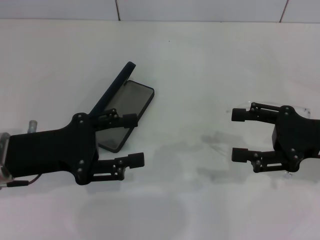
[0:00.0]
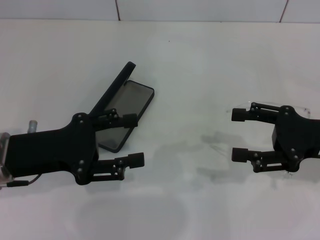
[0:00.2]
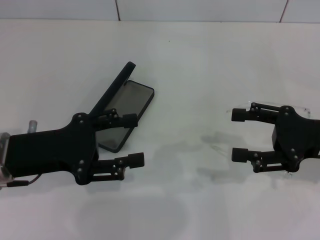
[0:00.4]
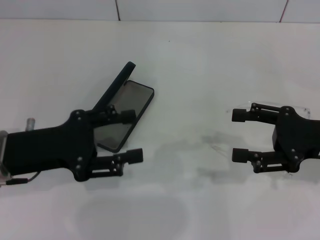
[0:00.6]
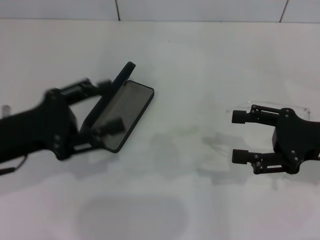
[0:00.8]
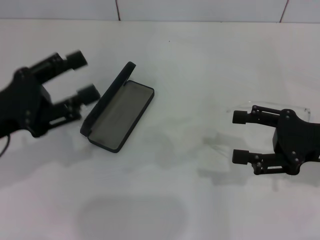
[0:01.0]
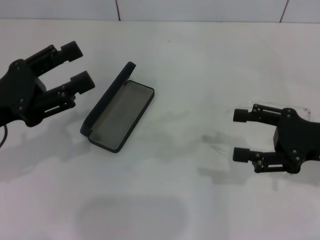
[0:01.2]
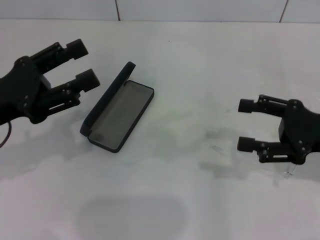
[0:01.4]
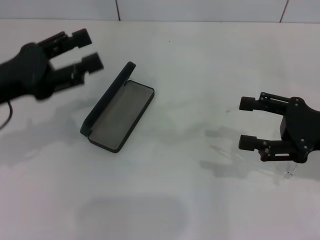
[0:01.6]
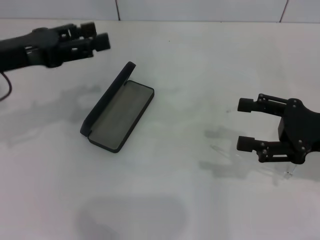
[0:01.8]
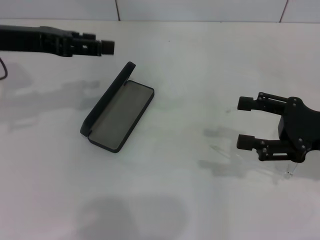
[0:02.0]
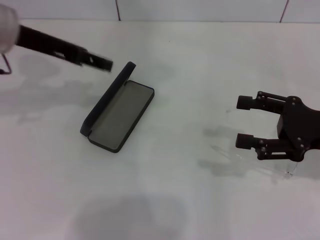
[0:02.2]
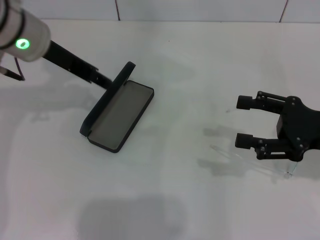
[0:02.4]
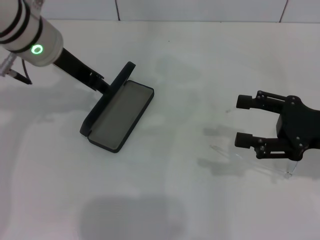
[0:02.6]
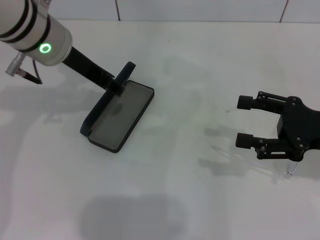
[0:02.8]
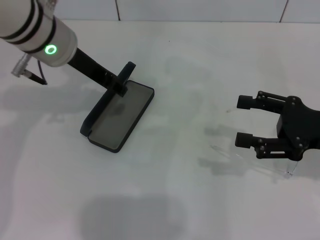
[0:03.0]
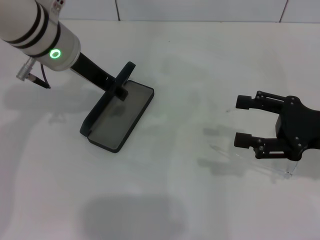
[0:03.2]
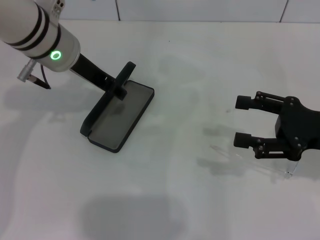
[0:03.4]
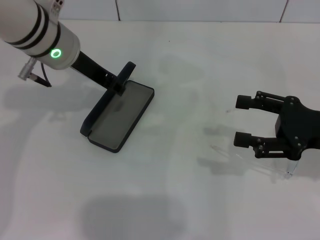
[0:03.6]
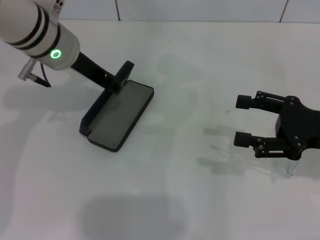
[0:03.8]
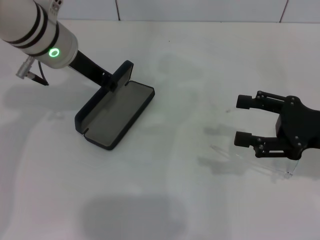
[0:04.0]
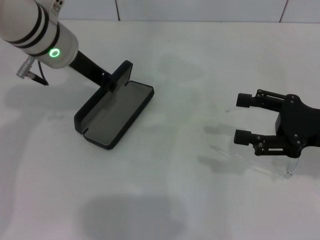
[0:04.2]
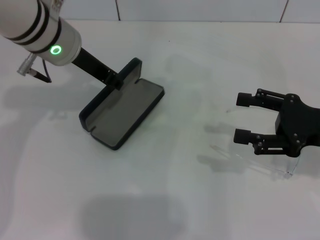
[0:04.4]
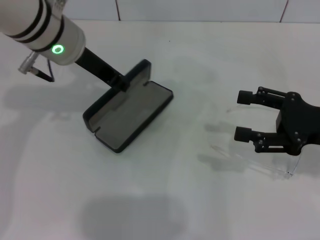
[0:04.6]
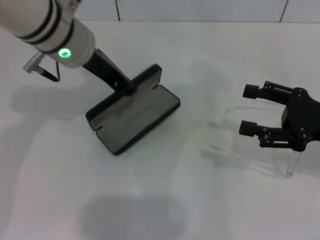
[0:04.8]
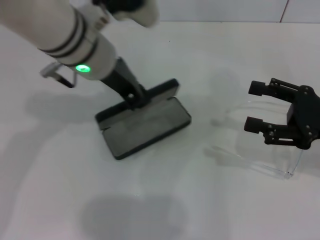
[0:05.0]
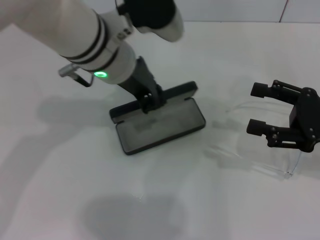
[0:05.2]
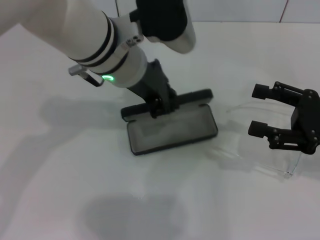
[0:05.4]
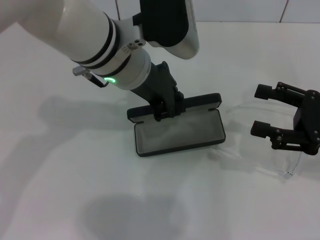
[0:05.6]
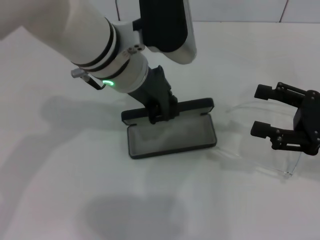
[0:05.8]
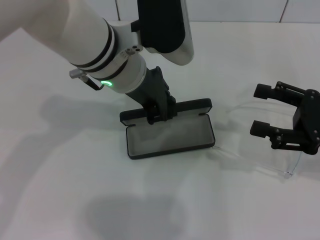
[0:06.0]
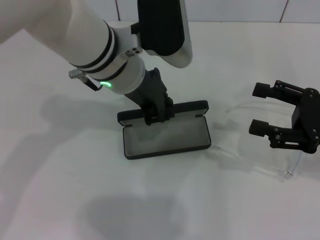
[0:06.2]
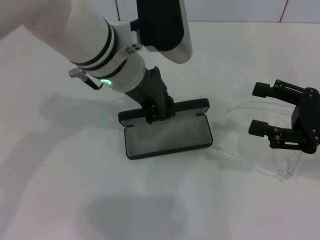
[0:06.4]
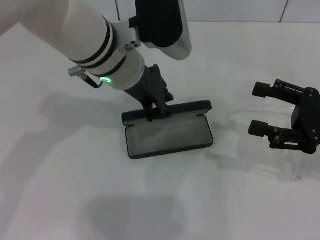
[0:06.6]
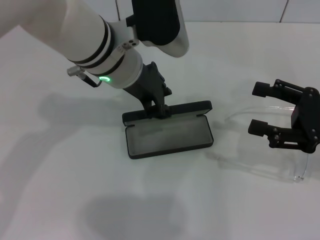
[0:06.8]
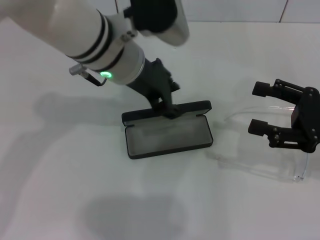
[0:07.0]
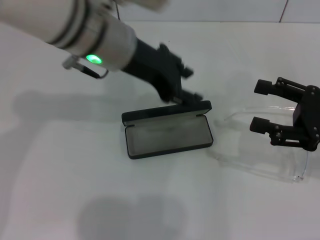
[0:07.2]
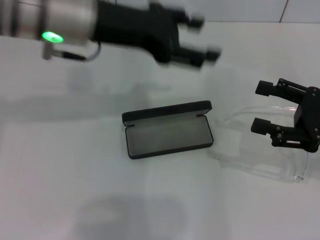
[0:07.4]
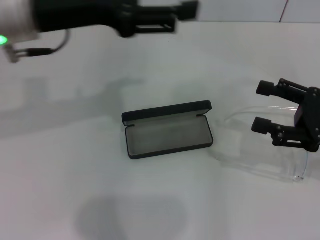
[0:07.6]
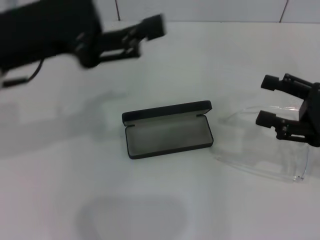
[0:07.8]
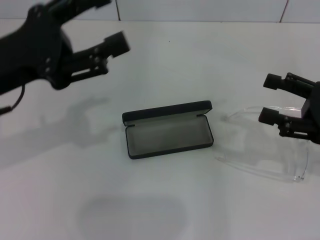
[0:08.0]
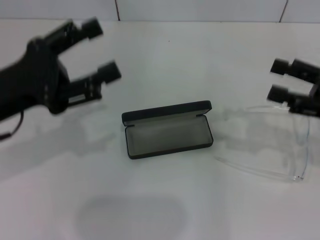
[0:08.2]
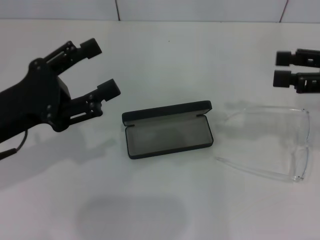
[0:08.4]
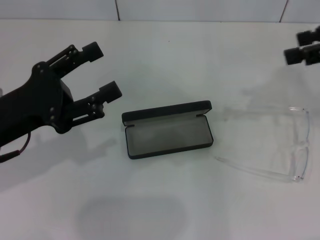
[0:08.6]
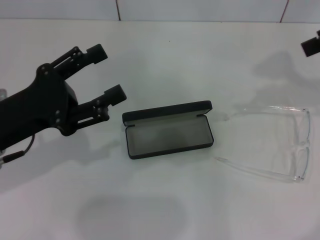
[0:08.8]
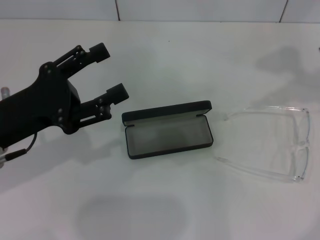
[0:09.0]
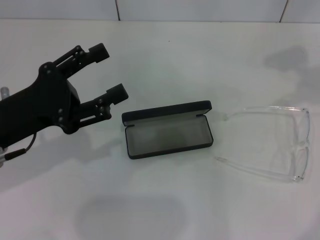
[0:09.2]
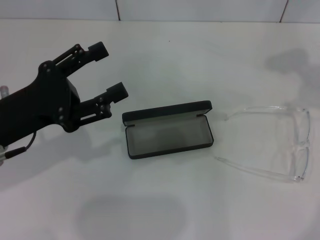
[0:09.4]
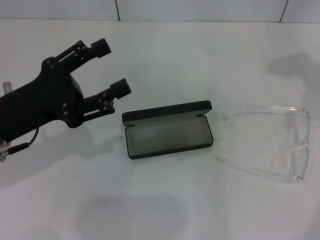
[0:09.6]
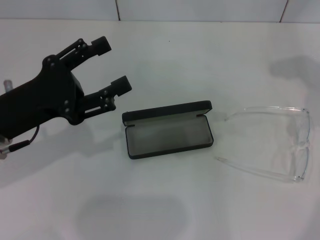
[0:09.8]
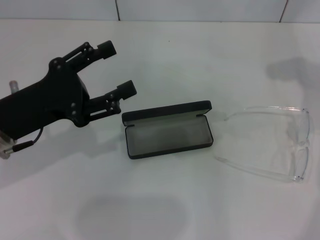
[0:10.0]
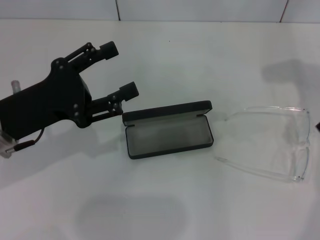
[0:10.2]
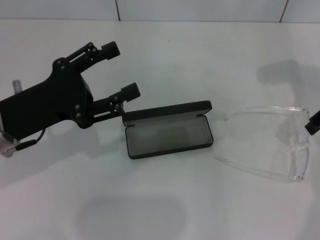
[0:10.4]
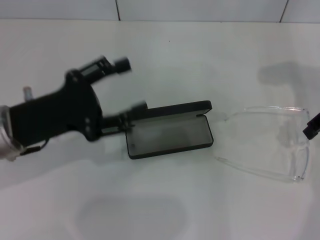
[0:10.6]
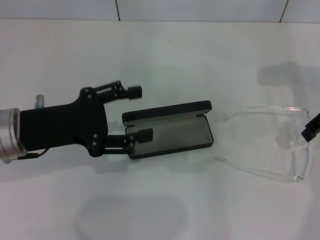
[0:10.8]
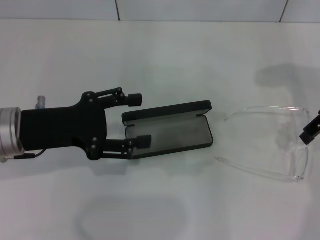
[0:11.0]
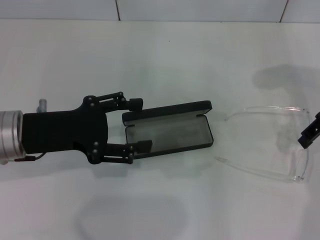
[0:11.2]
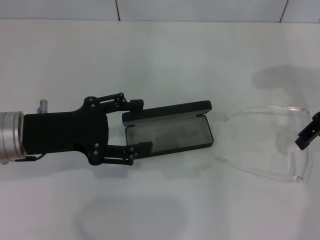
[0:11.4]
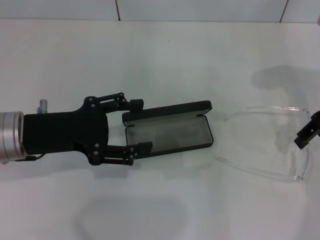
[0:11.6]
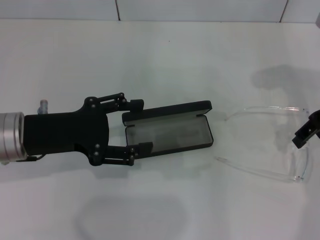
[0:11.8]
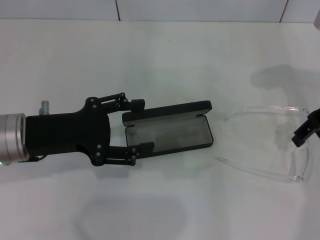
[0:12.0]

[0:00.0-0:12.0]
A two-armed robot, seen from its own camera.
Step, 0:00.0 to 0:04.0: Grab the glasses case with your left hand.
Step, 0:04.4 to 0:06.8: Place the glasses case in the center of the table with your left hand.
0:00.0 to 0:01.6: The left gripper shifts by some 5 cm.
0:01.6 to 0:03.0: The left gripper heads to the right and forward, covering approximately 15 cm.
0:03.0 to 0:04.4: The left gripper closes its fingers.
0:04.4 to 0:06.0: The left gripper is displaced to the right by about 10 cm.
0:06.0 to 0:07.6: The left gripper travels to the left and upward by about 15 cm, and opens.
0:07.6 to 0:09.0: The left gripper moves downward, backward and to the left, about 15 cm; the right gripper shifts approximately 25 cm upward and forward.
0:09.0 to 0:10.4: The right gripper travels downward by roughly 10 cm.

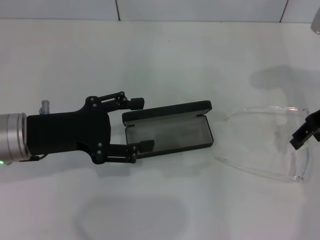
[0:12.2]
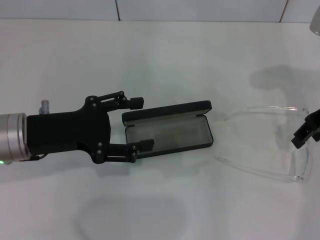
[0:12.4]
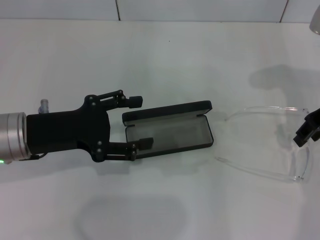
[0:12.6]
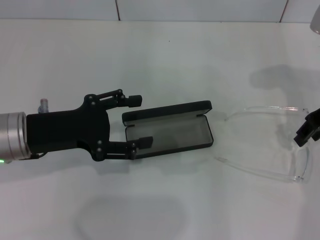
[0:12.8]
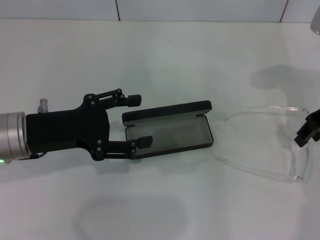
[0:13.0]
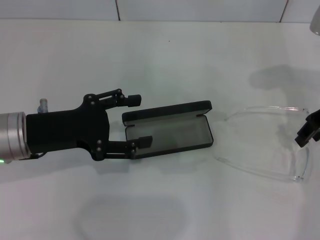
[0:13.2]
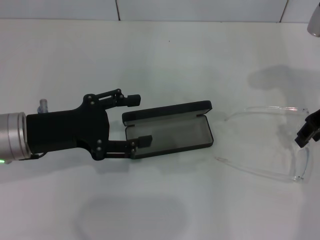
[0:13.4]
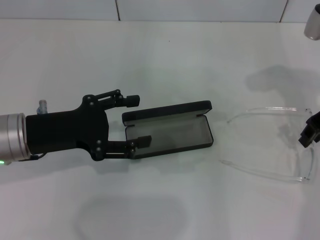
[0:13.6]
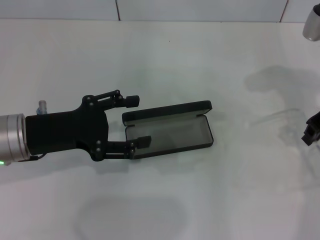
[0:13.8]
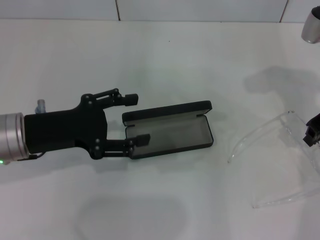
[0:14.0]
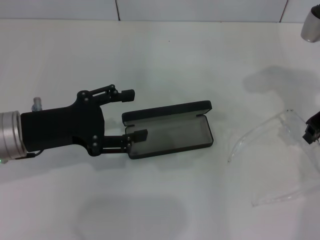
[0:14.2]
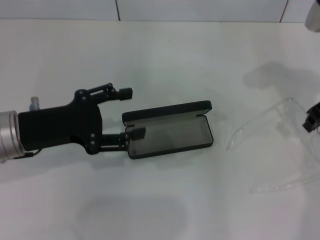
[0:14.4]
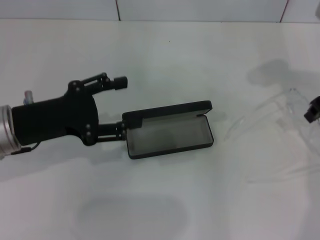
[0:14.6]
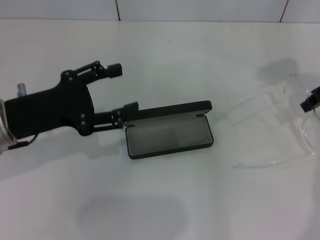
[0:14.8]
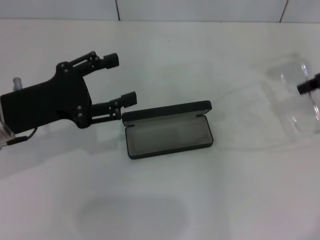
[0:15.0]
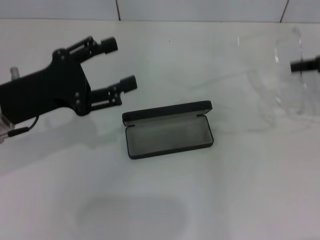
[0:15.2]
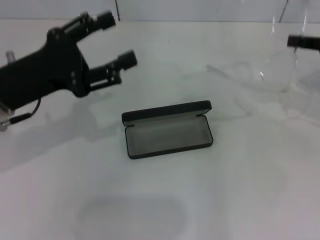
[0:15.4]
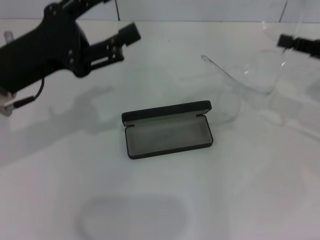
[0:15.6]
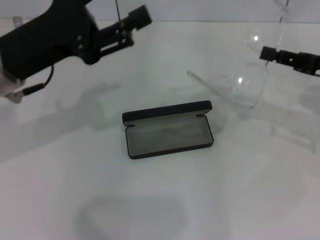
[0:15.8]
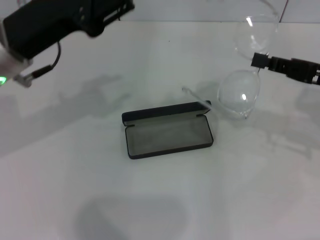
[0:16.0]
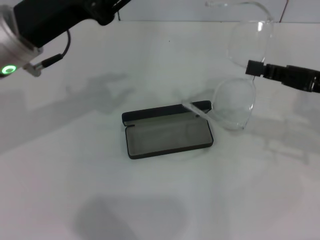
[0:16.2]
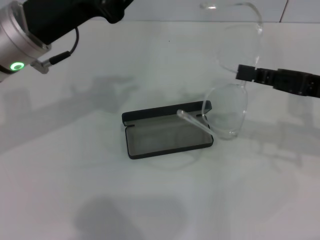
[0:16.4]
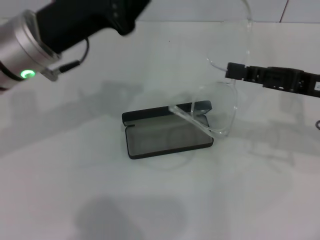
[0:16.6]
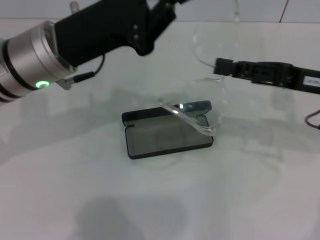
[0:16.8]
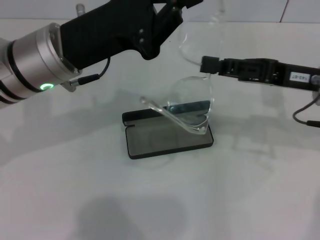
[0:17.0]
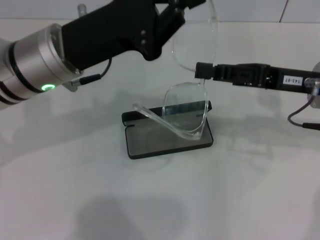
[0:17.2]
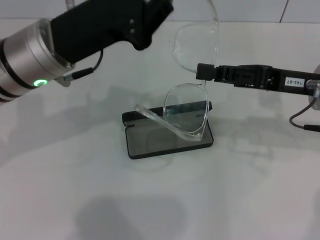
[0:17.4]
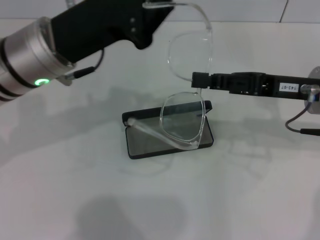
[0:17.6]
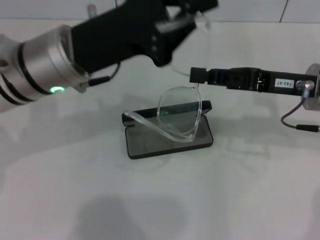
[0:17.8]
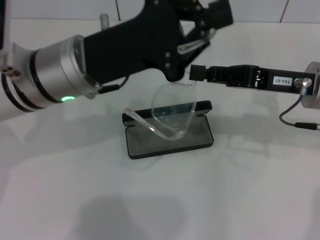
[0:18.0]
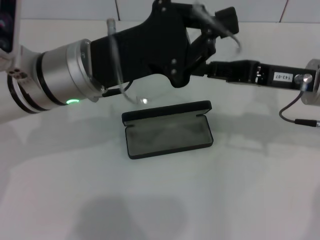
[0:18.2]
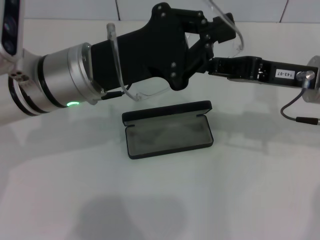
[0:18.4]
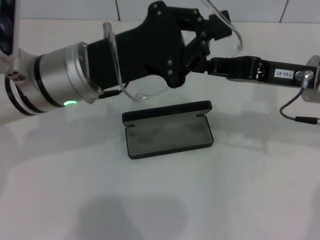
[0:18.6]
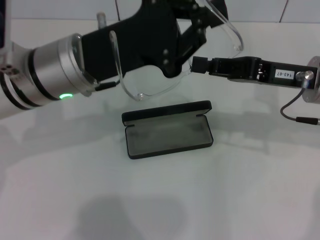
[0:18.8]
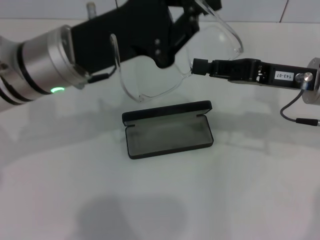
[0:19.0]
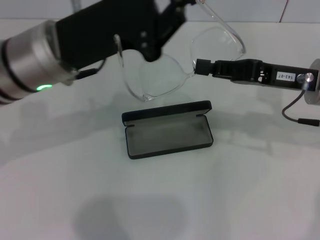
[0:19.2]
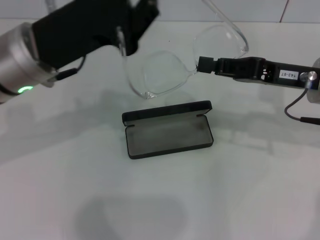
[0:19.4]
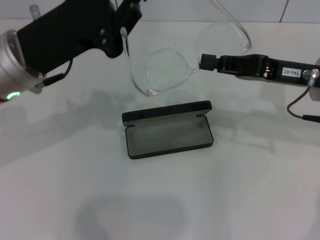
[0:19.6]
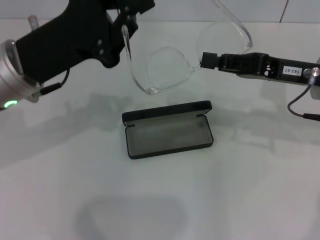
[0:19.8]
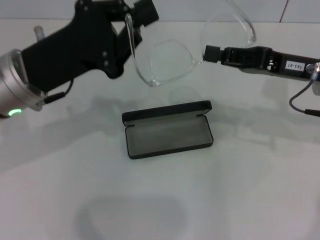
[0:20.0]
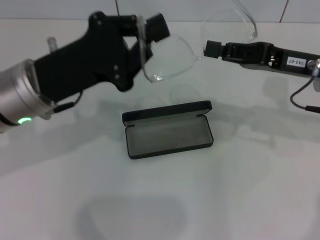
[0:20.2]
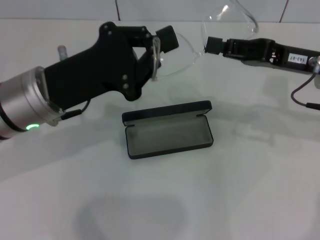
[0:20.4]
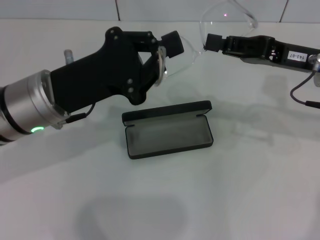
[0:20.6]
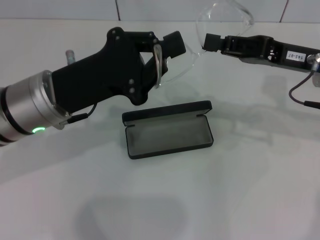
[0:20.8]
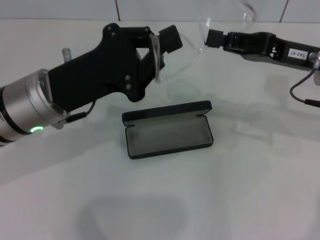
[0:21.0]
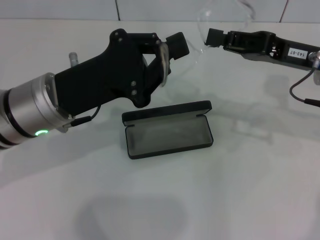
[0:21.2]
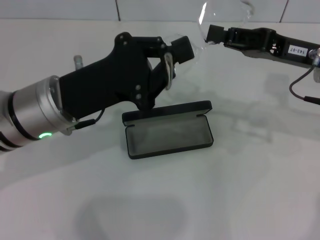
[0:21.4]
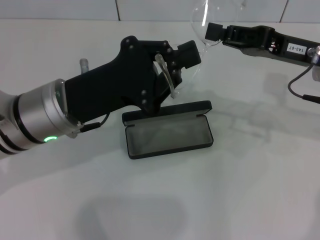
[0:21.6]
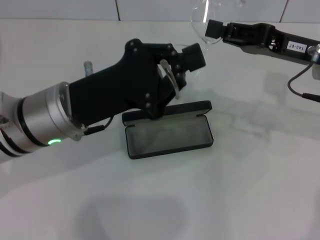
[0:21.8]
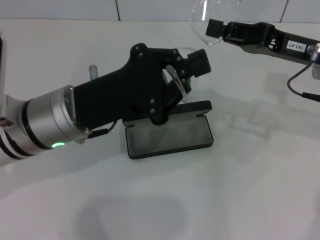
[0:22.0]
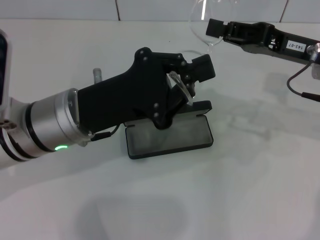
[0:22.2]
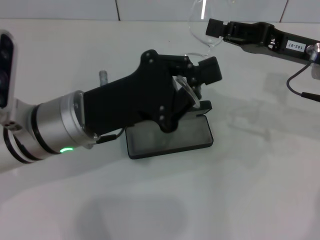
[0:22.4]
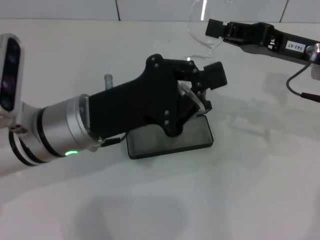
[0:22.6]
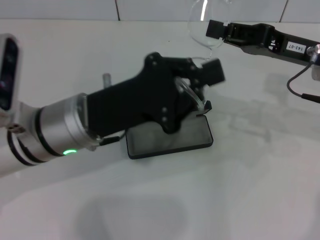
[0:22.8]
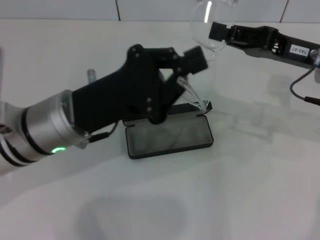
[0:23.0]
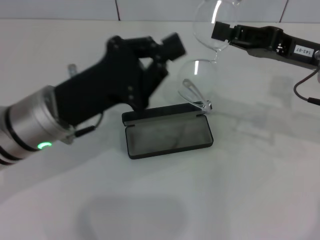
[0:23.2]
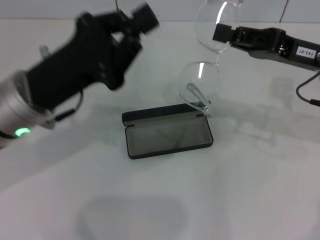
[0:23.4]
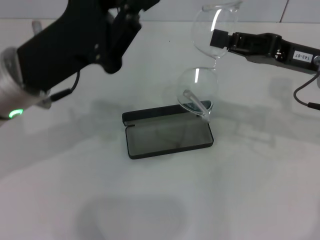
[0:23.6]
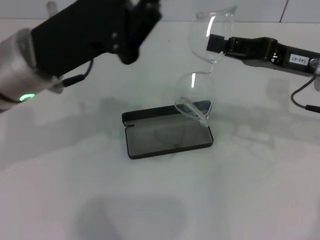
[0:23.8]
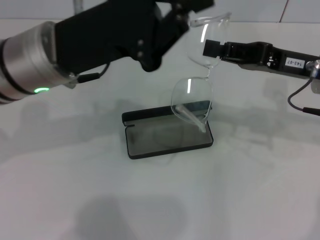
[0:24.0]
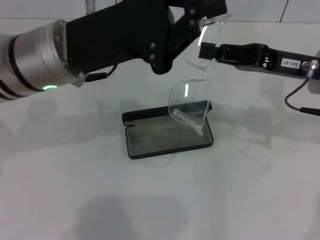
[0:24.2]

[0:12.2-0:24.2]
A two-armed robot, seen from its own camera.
0:12.2 to 0:13.8: The grippers stay close to where they were, moving slightly.
0:13.8 to 0:15.2: The right gripper heads to the right, covering roughly 5 cm, and closes up.
0:15.2 to 0:16.6: The right gripper goes roughly 10 cm to the left and downward. The left gripper is displaced to the right by approximately 5 cm, and closes its fingers.
0:18.2 to 0:19.8: The left gripper shifts about 5 cm to the left.
0:22.6 to 0:24.2: The left gripper goes some 5 cm upward.
